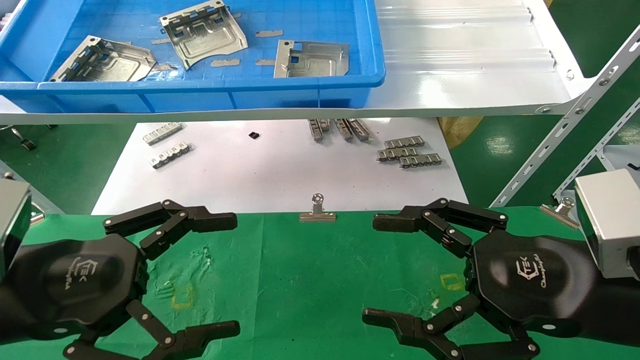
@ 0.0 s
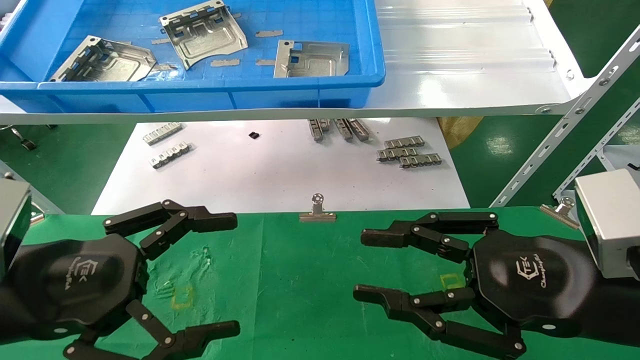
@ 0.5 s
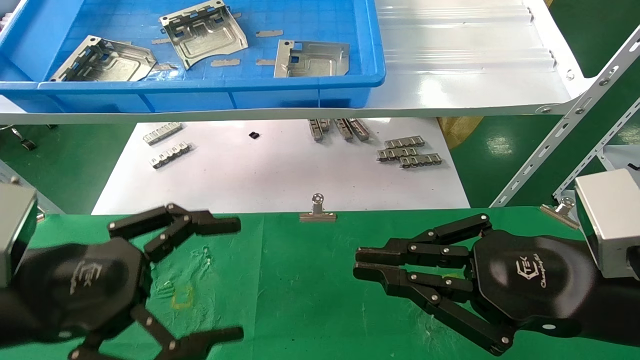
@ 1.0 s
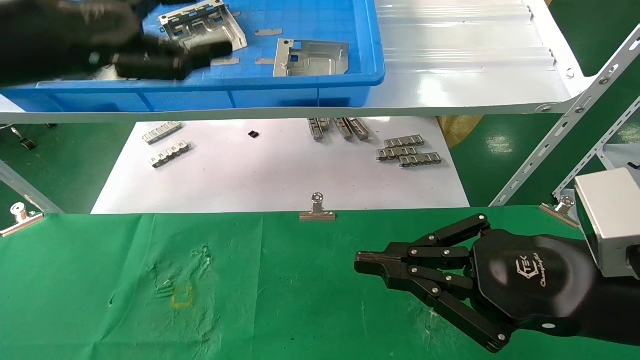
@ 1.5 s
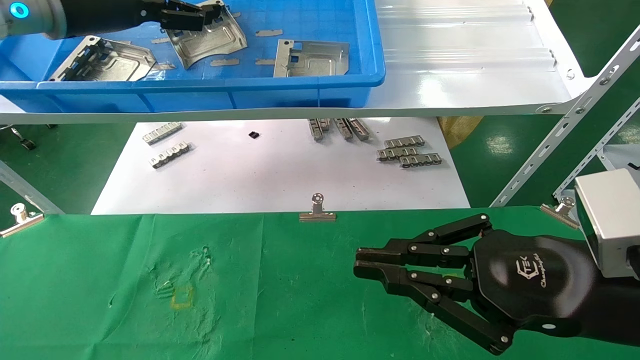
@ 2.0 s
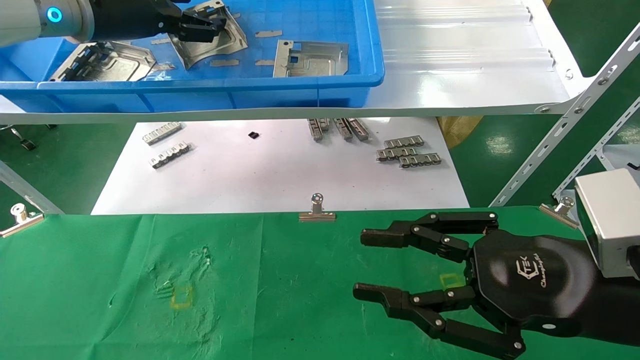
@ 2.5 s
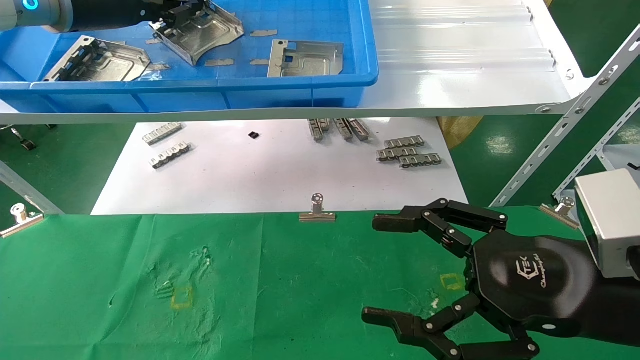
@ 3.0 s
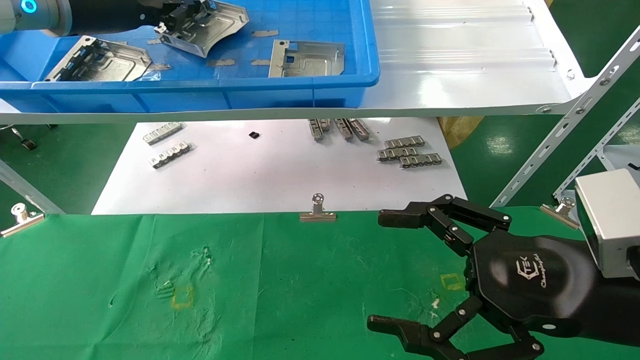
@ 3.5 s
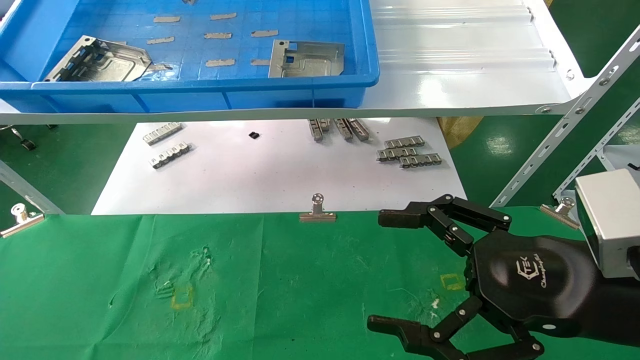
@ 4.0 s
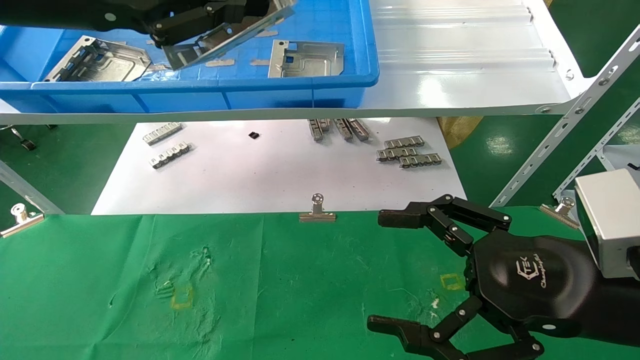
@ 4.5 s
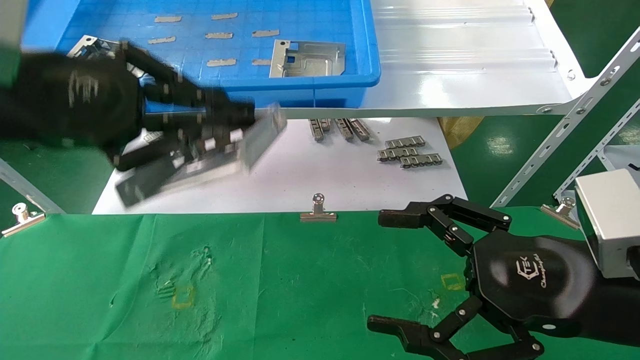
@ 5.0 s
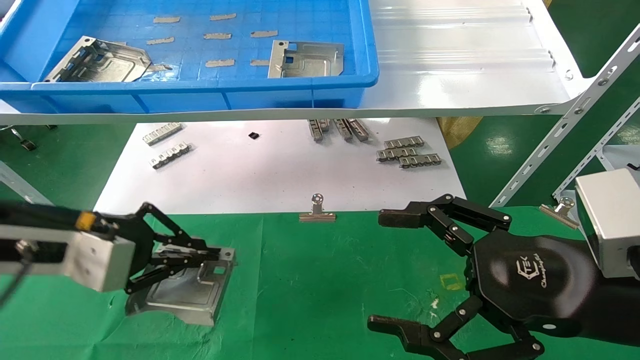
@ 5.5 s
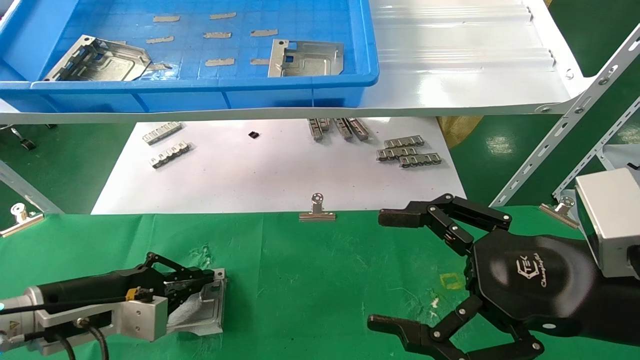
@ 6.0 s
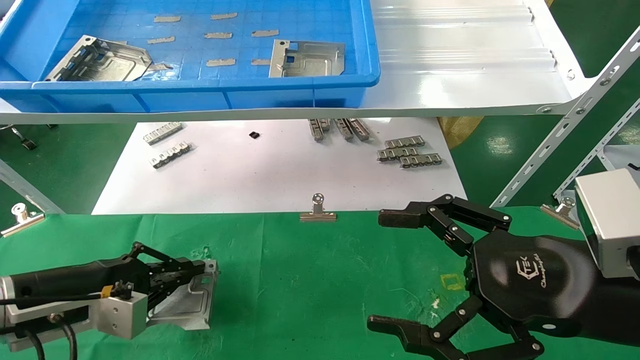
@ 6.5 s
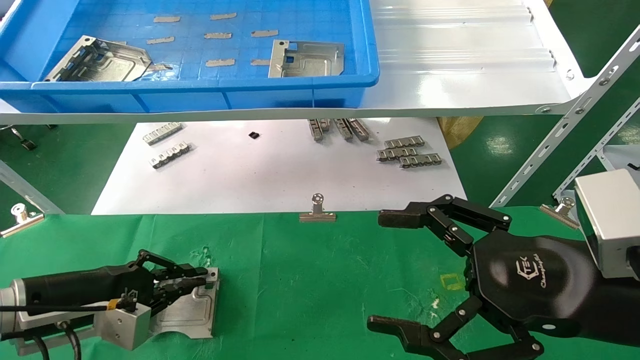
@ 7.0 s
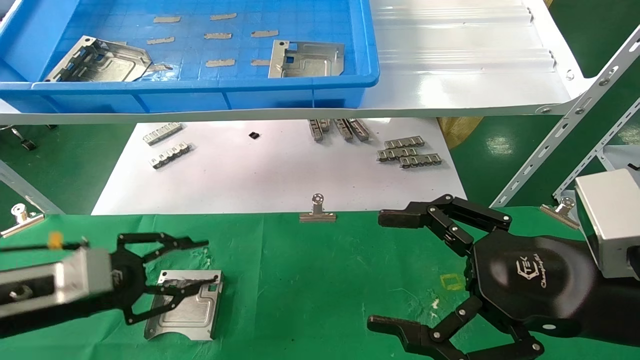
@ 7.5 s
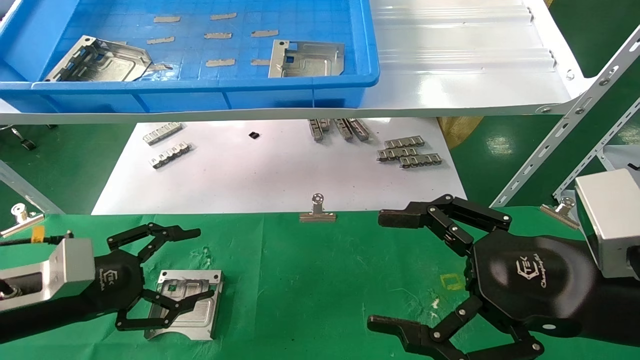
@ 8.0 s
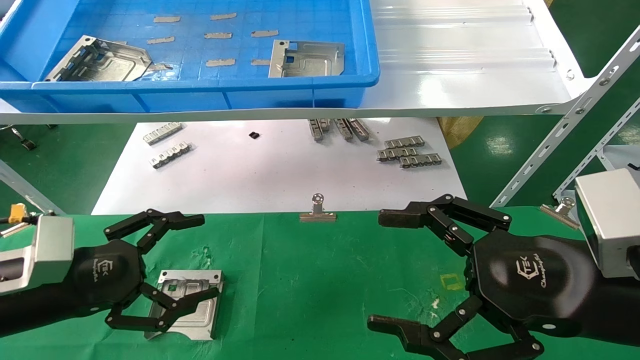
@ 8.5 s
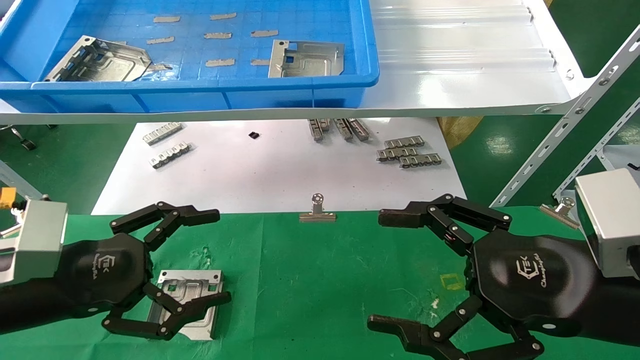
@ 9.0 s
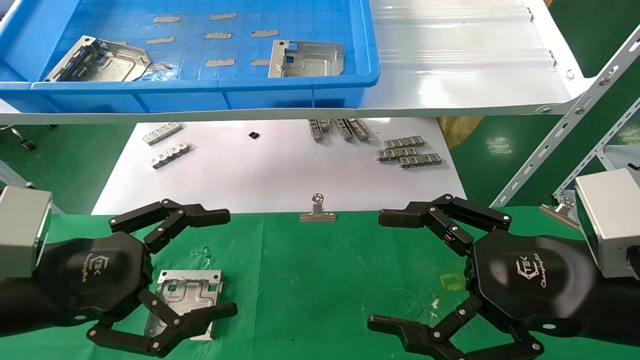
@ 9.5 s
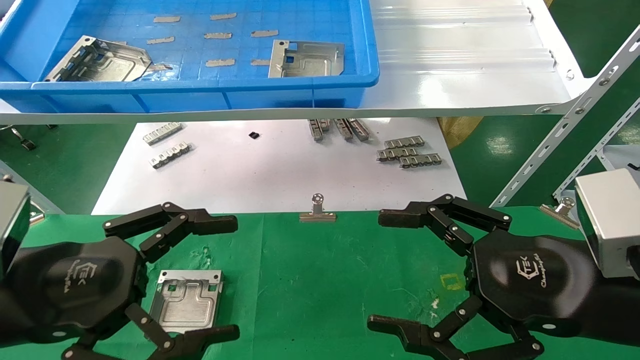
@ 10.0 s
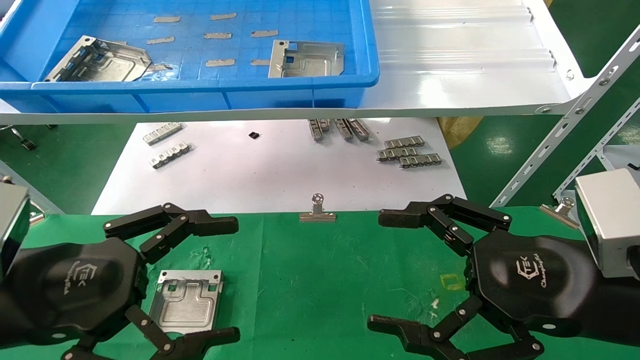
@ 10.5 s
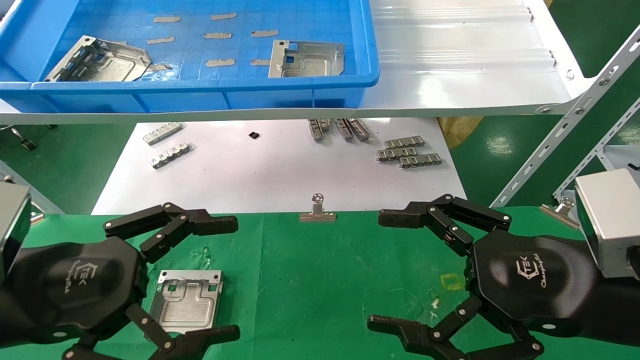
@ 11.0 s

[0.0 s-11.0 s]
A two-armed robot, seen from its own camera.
Task of the whole recording: use the mechanical arm to pick up the parts and place them on the table.
Step, 1.5 to 3.0 s: Pick up the hard drive bracket from the feeding area.
Step, 3.5 to 7.0 s: Place the hard drive bracket into the box.
0.0 to 2.0 s: The left gripper moves upward and forward, about 30 cm, while the right gripper closes up.
2.0 to 3.5 s: The left gripper closes up; the right gripper opens its fingers.
3.5 to 5.5 s: The left gripper shifts about 25 cm downward and backward.
5.5 to 7.5 s: The left gripper travels downward by roughly 10 cm.
7.5 to 9.0 s: The left gripper is displaced upward by about 5 cm, and opens its fingers.
9.0 to 11.0 s: The left gripper moves roughly 5 cm.

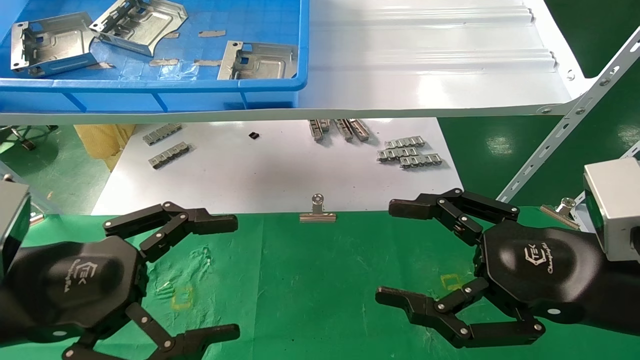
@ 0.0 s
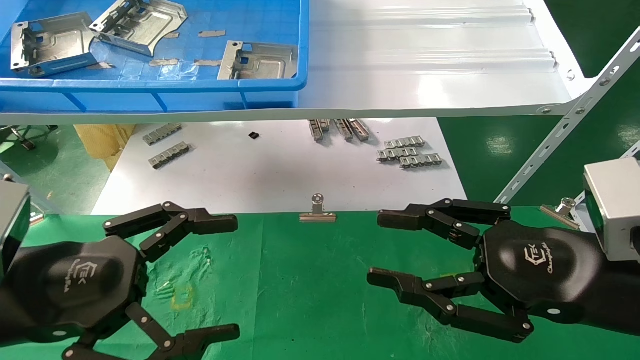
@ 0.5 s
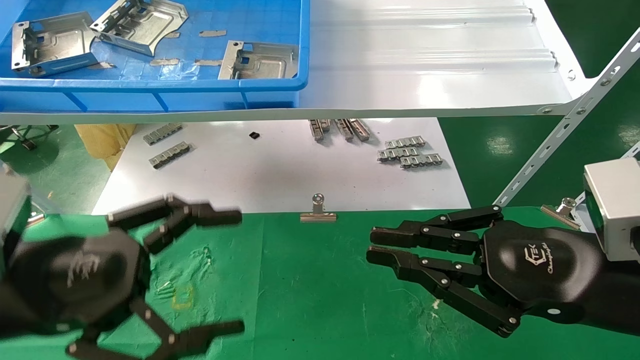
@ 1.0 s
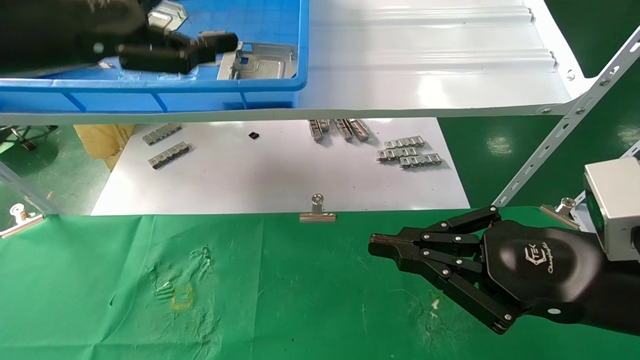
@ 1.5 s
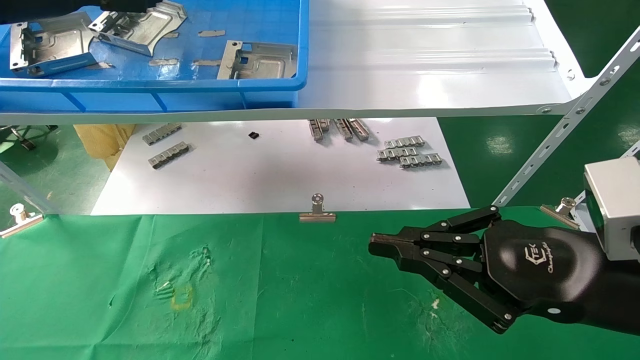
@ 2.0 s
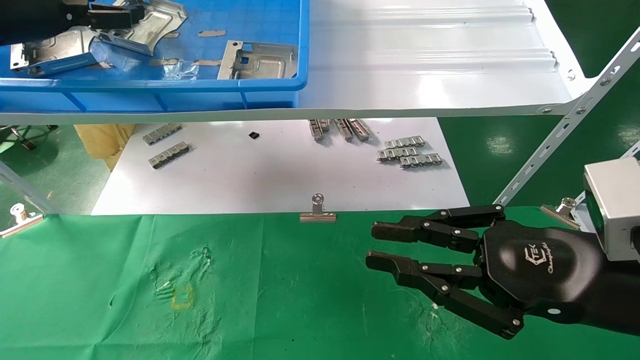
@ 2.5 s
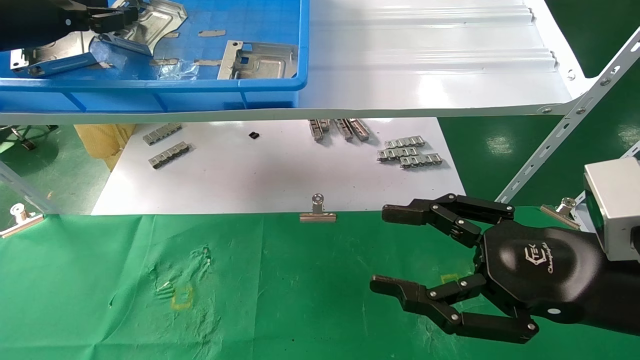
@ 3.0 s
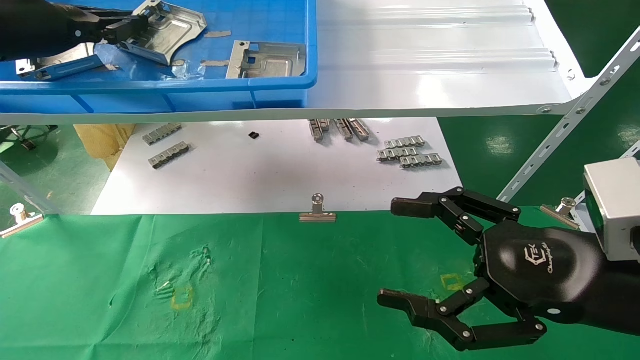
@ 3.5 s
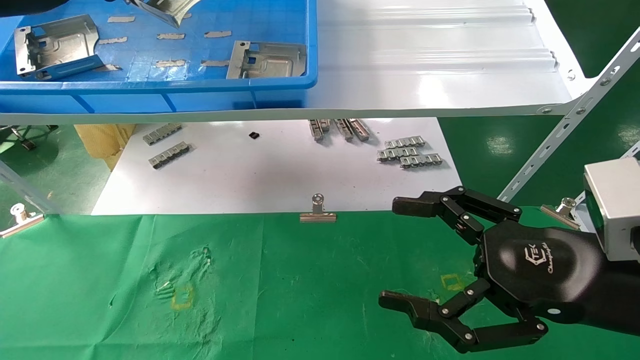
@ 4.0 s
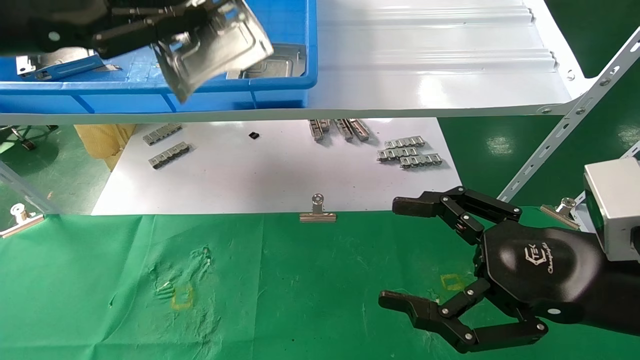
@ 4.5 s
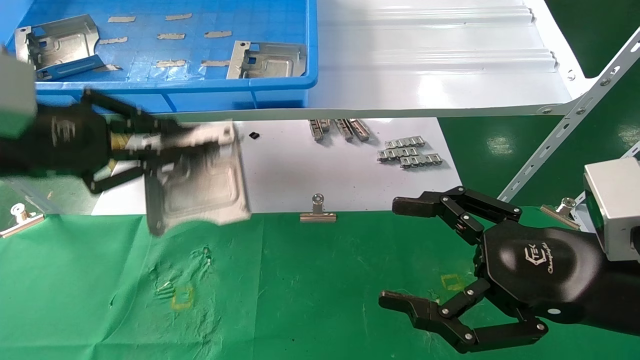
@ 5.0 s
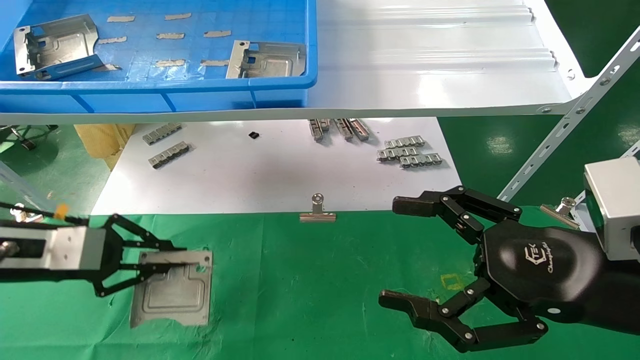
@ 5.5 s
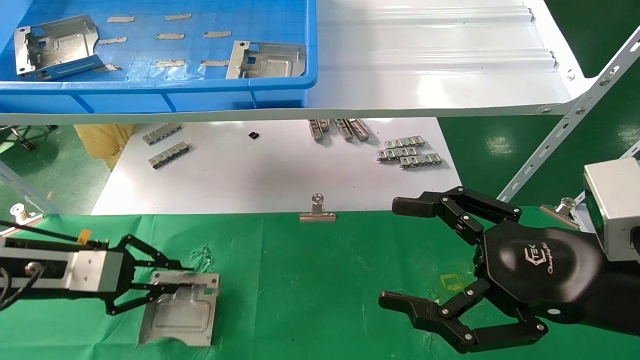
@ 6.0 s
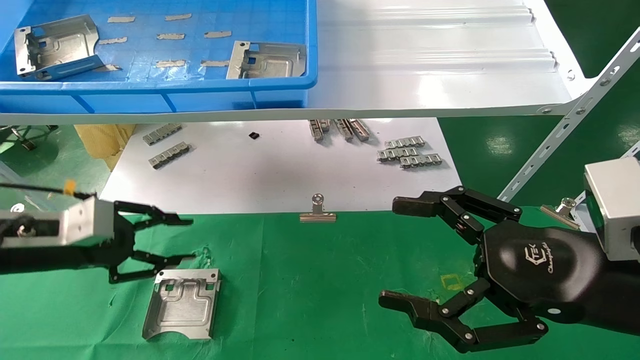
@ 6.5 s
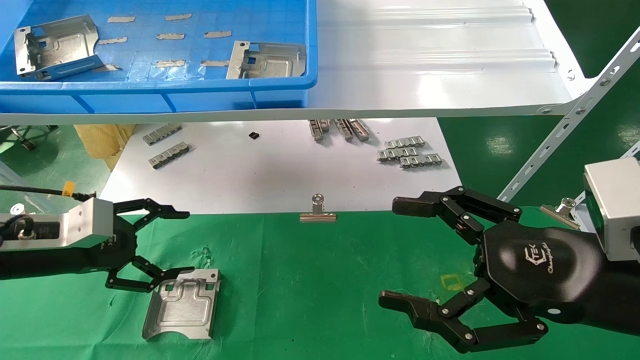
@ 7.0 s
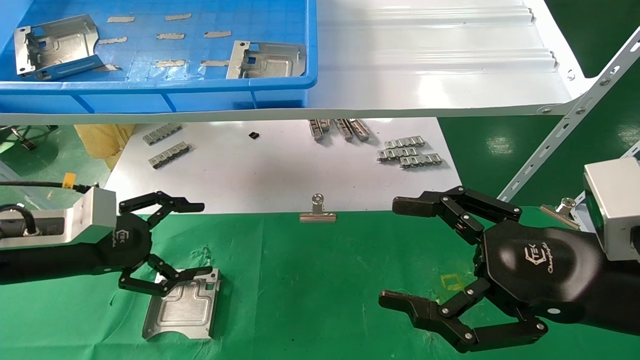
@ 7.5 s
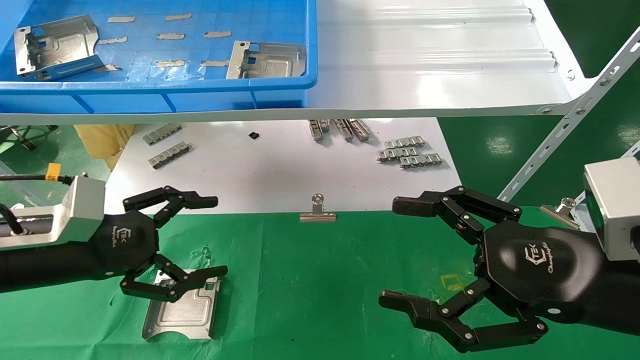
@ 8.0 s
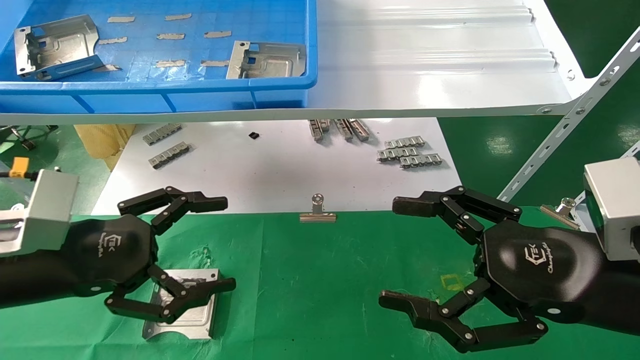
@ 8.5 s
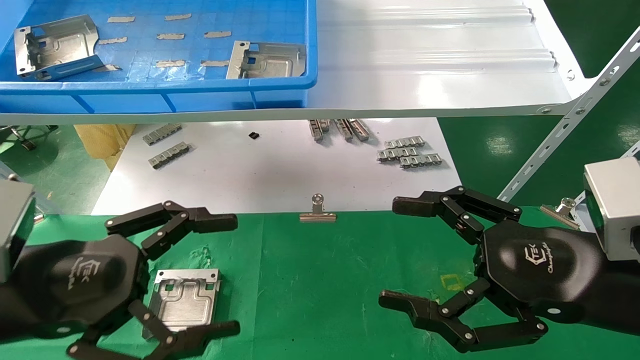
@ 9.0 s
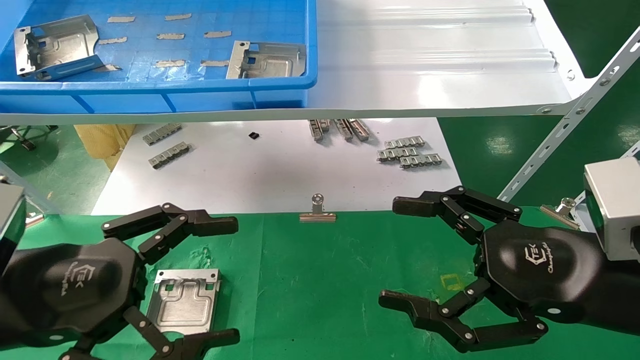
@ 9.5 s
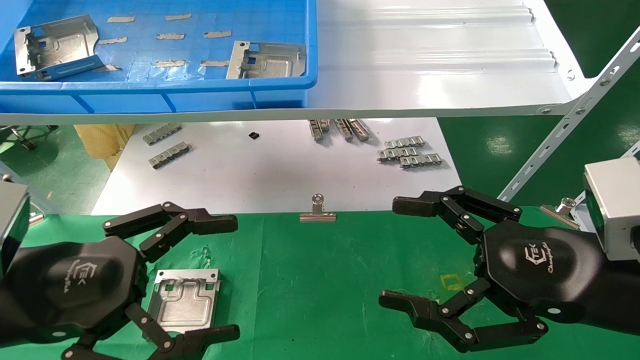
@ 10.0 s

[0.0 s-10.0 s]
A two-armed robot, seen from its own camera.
Task of the whole recording: use the mechanical arm to pick up the parts and place them on the table.
Step, 1.0 to 3.5 s: Pick up the hard drive bracket from the feeding area.
Step, 4.0 to 6.0 s: Place the hard drive bracket into the box.
0.0 to 2.0 s: The left gripper travels upward and forward by roughly 30 cm. The right gripper closes its fingers.
2.0 to 4.0 s: The right gripper opens up; the left gripper closes up.
4.0 to 6.0 s: The left gripper travels downward by about 30 cm.
6.0 to 8.0 s: The left gripper heads to the right, covering approximately 5 cm, and opens up.
8.0 to 10.0 s: The left gripper travels backward by approximately 10 cm.
